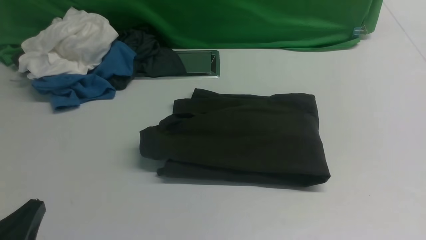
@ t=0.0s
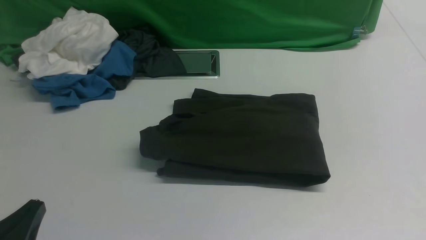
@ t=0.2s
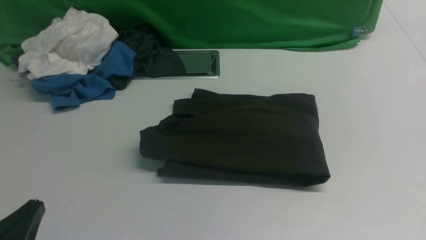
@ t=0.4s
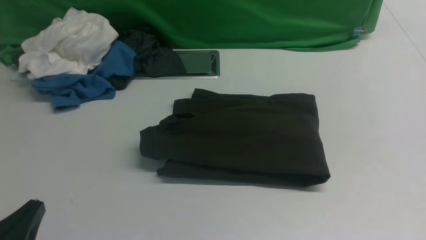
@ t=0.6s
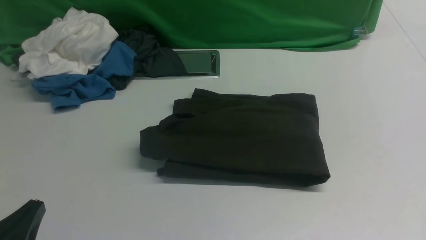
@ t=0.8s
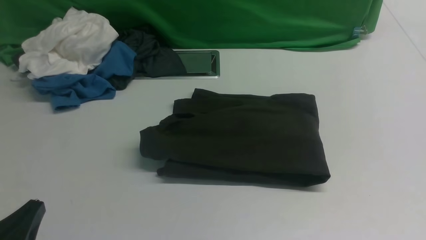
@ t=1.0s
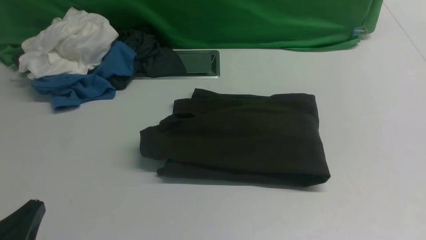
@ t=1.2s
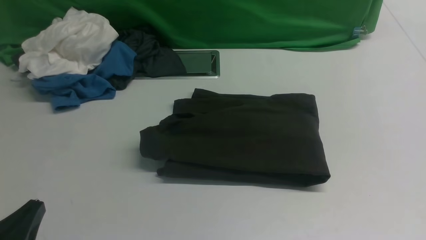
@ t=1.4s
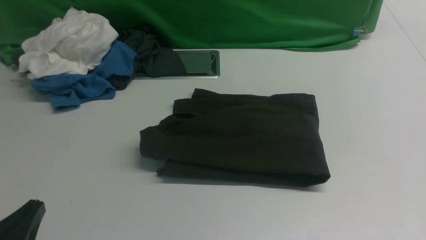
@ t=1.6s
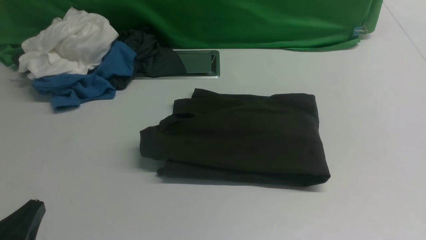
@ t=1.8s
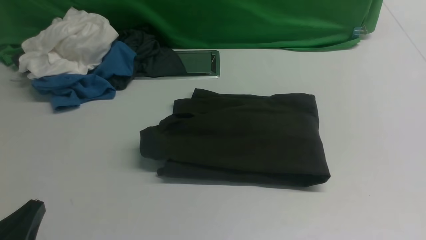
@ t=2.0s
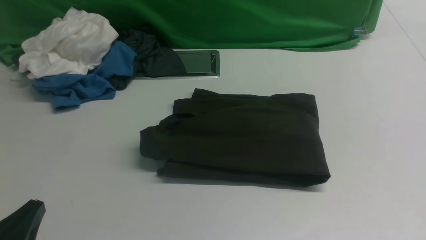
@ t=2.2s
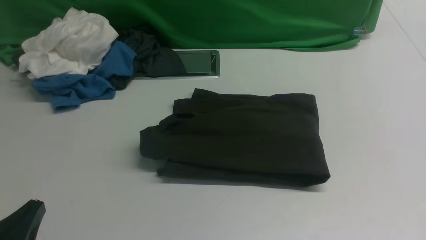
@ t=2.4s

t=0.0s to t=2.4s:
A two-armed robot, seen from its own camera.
t=0.0s to t=2.4s: Both grippers stay put.

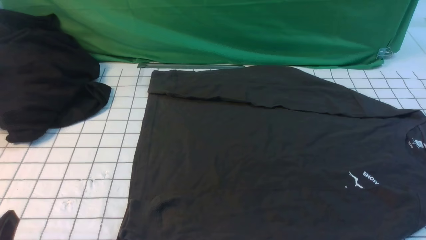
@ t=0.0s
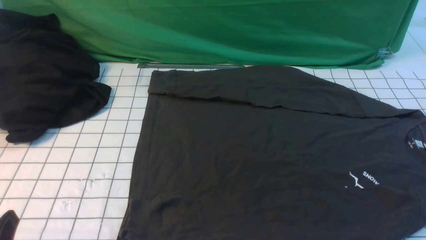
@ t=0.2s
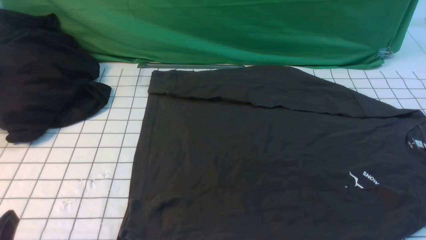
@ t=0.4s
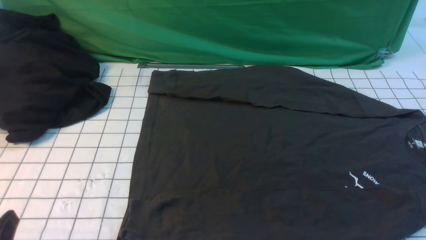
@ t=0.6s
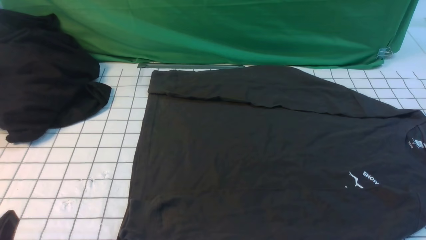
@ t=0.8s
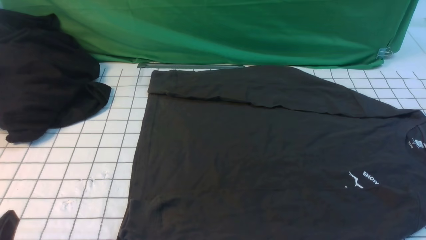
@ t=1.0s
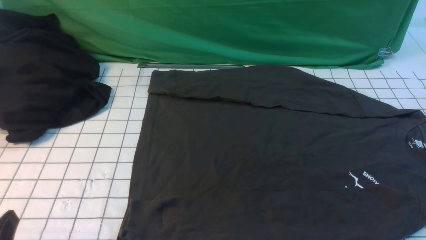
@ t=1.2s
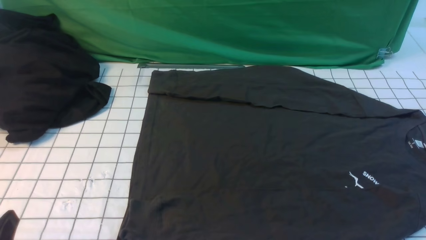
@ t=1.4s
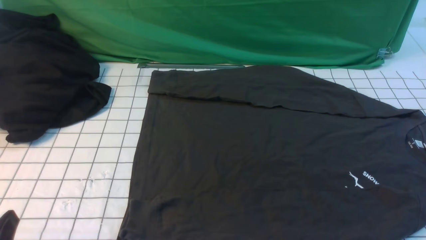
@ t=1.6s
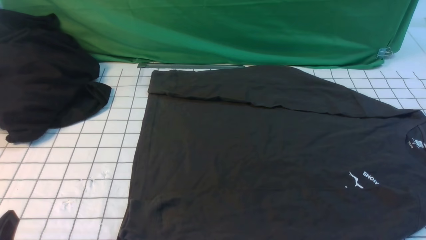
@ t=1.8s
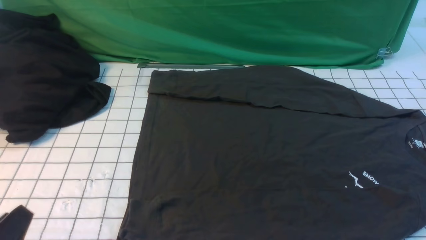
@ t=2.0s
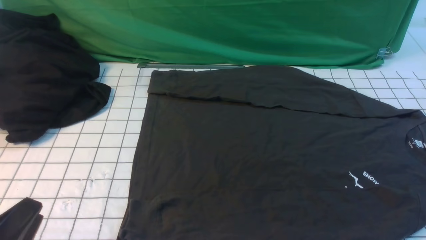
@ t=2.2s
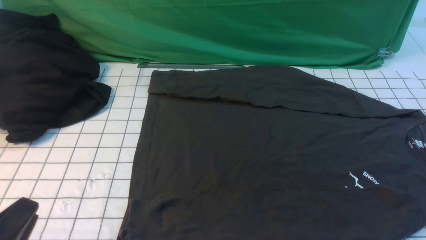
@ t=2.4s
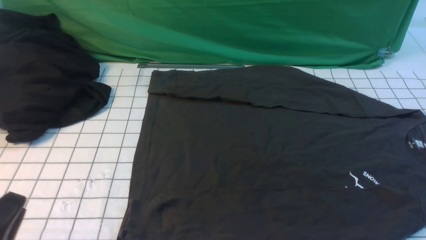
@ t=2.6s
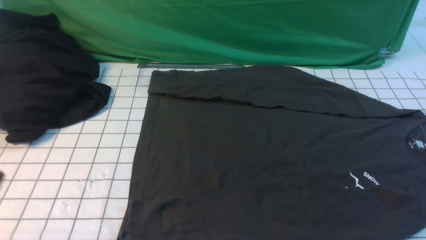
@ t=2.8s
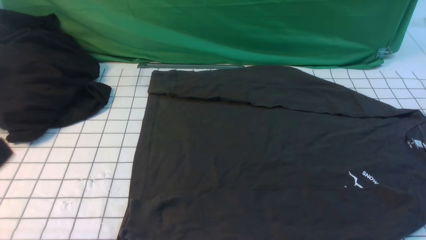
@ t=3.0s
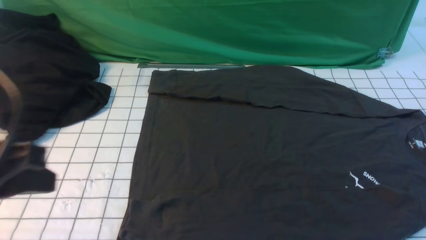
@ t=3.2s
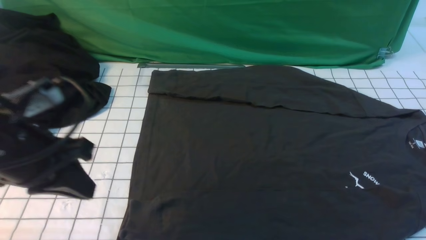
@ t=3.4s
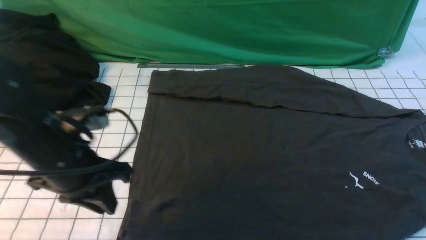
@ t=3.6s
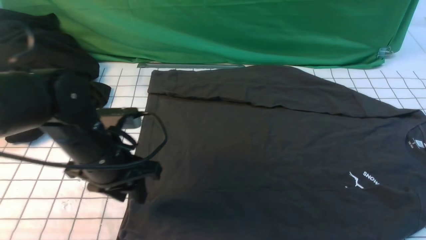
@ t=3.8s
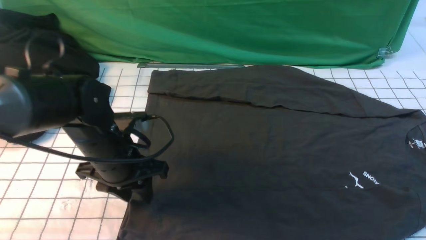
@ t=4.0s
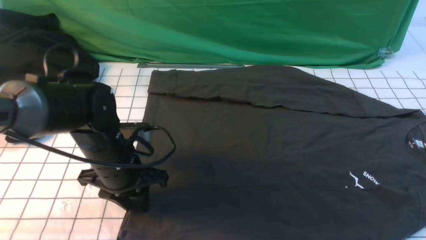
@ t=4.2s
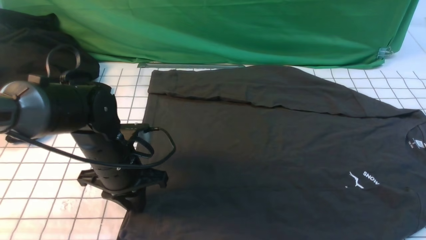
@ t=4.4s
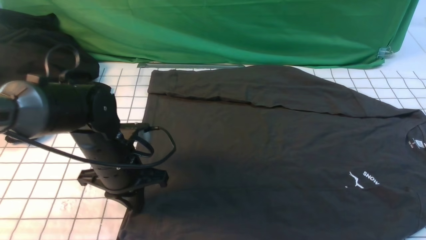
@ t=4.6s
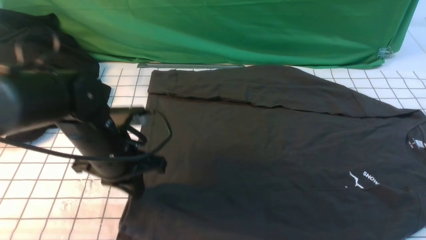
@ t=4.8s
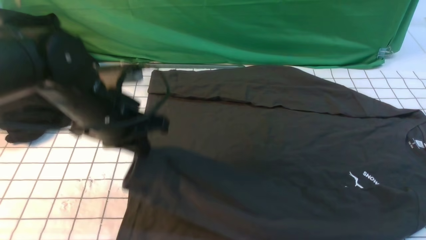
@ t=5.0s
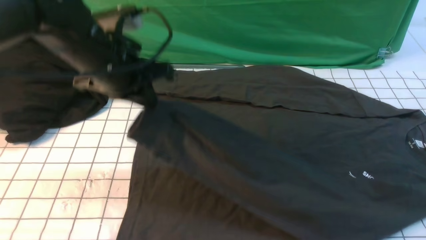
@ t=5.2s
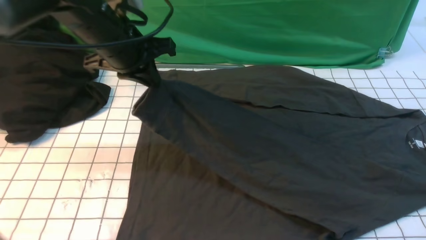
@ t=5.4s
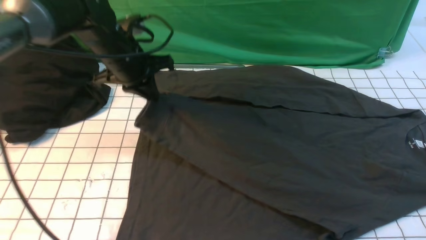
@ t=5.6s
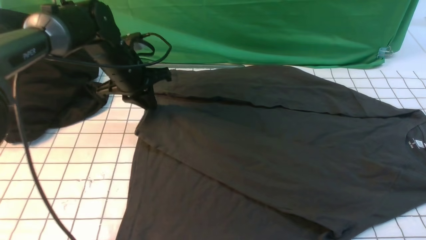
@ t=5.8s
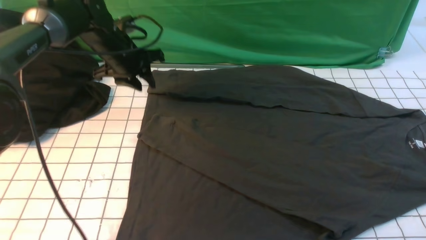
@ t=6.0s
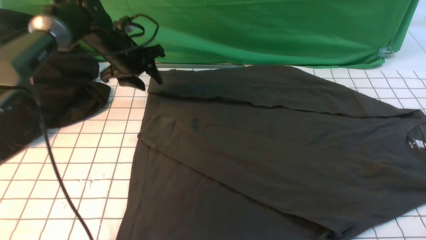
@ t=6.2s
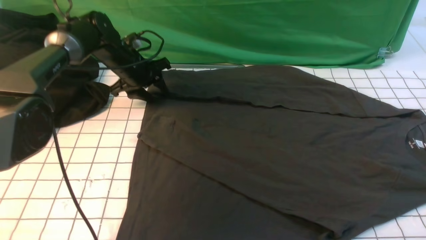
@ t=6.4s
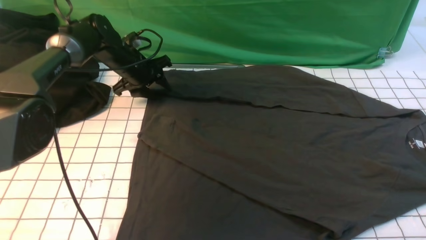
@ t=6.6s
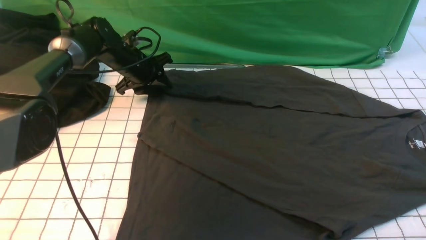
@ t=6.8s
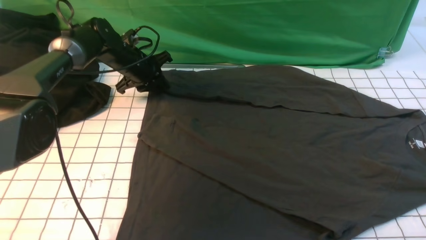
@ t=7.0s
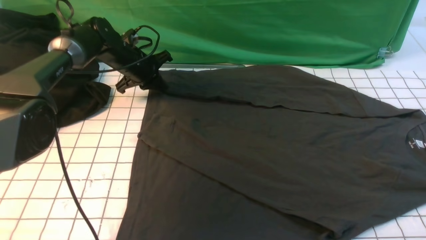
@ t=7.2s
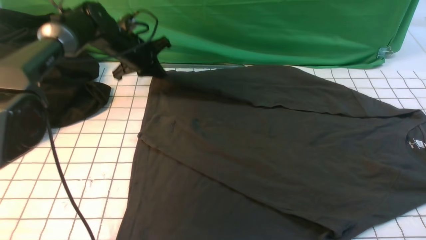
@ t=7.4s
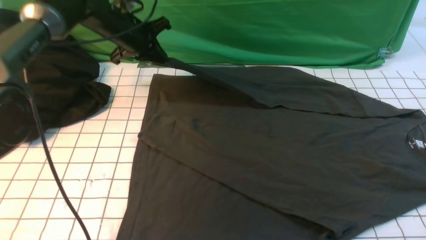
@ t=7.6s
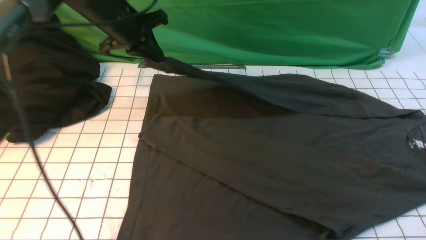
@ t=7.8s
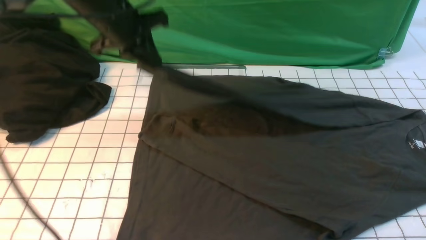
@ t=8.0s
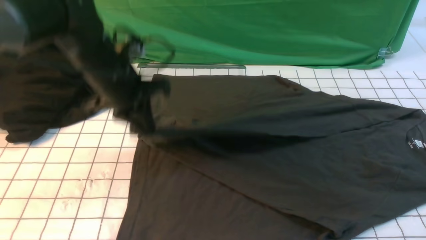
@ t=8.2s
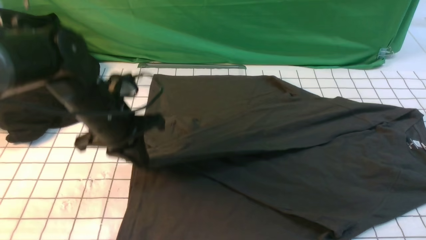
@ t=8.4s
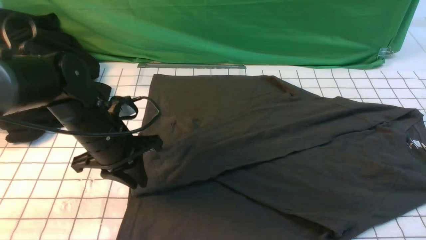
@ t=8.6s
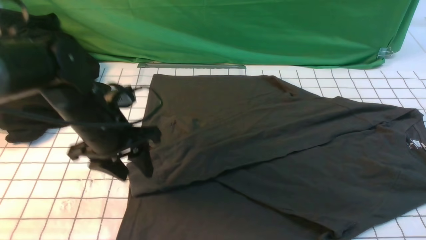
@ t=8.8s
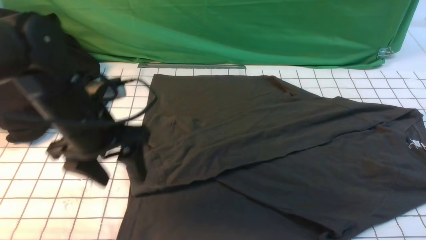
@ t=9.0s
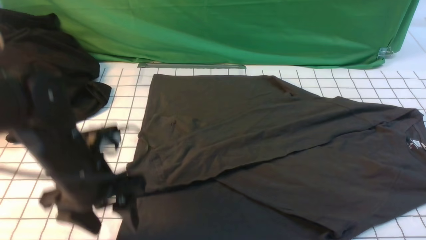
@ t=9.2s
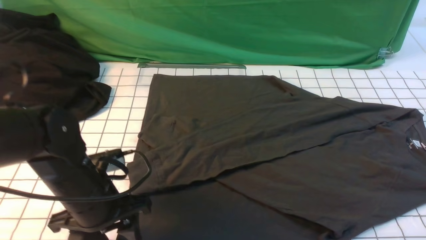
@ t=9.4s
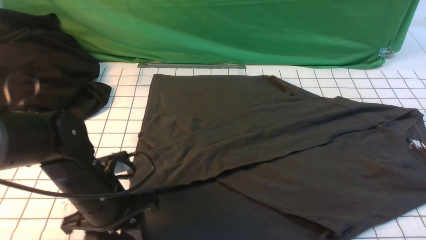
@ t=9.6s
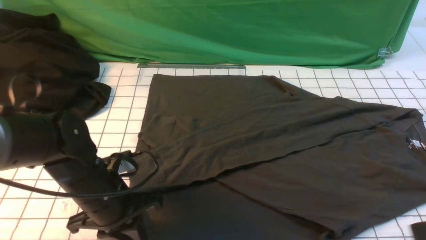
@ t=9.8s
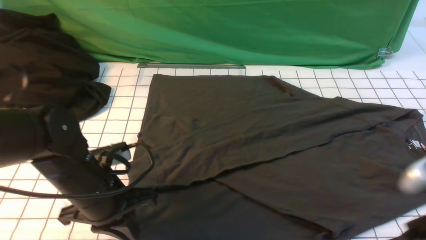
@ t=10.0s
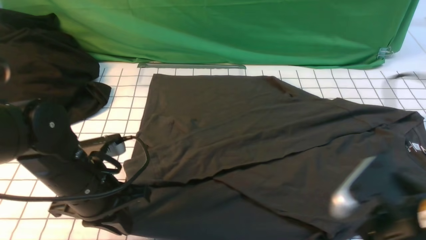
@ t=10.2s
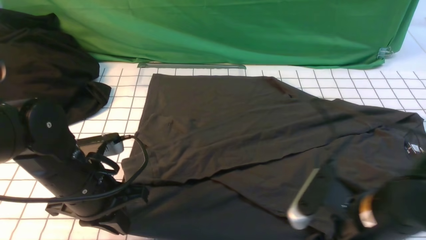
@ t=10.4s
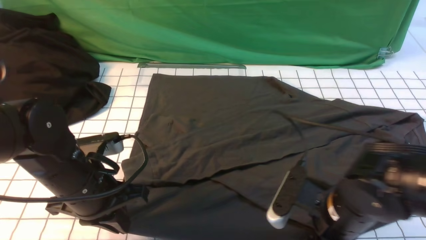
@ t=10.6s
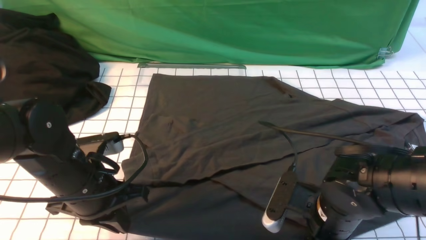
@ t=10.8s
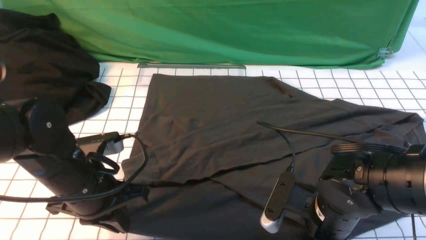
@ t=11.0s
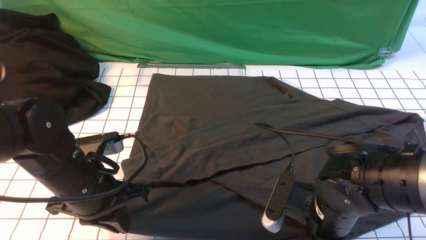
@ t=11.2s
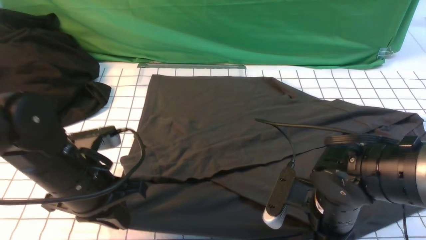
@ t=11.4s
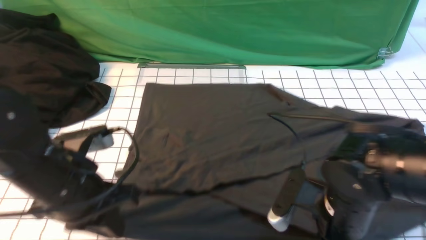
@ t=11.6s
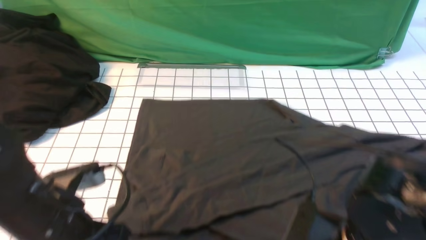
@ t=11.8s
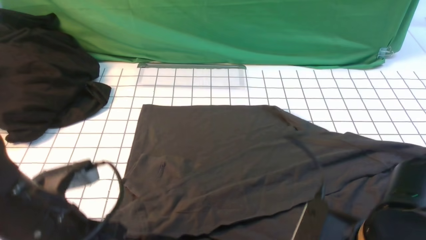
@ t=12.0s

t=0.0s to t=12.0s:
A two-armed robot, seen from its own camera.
Step, t=0.0s to t=4.8s: use the left arm to clamp the cuff closest to it.
Step, t=5.0s to t=5.8s: use the left arm to drag and place the cuff at the centered position on the left edge of the fabric.
Step, t=6.0s to t=7.2s: use the left arm to clamp the cuff farthest from it.
Step, t=7.6s to t=8.8s: use the left arm to drag and drop the cuff onto the cuff closest to the left arm.
Step, t=9.0s to t=12.0s: use both arms simultaneously to clamp the lower edge of the clothing fabric.
t=0.0s to t=1.6s: Both grippers stay about where they are.
t=1.6s to t=3.0s: The left gripper is displaced upward by approximately 15 cm, and closes.
t=3.0s to t=4.4s: The left gripper is displaced forward, downward and to the right by approximately 30 cm, and opens and closes again. The right gripper shifts roughly 5 cm forward.
t=4.4s to t=6.0s: The left gripper travels forward by about 20 cm.
t=6.0s to t=7.6s: The left gripper closes up.
t=7.6s to t=9.0s: The left gripper heads backward, covering roughly 25 cm, and opens up.
t=9.0s to t=10.4s: The left gripper changes place by approximately 5 cm, and closes its fingers. The right gripper travels to the left, downward and forward by about 15 cm, and opens up.
t=10.4s to t=12.0s: The left gripper moves backward, approximately 5 cm. The right gripper closes its fingers.

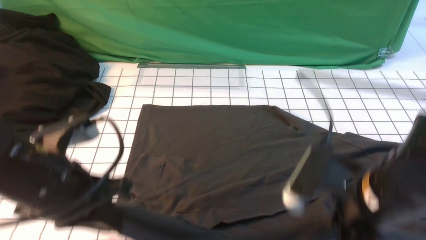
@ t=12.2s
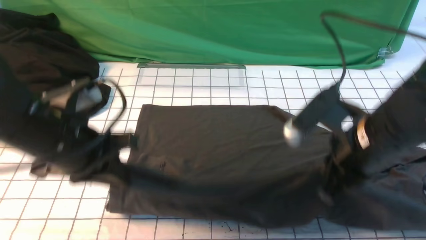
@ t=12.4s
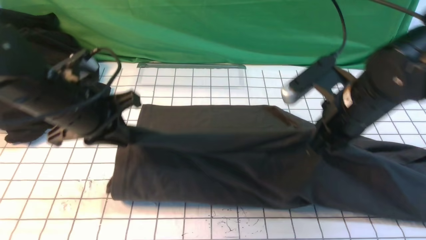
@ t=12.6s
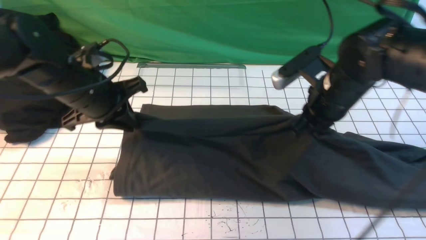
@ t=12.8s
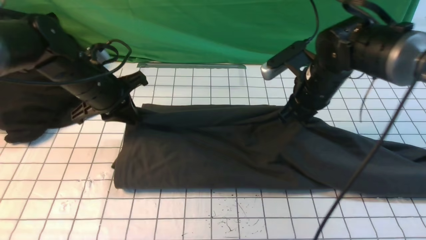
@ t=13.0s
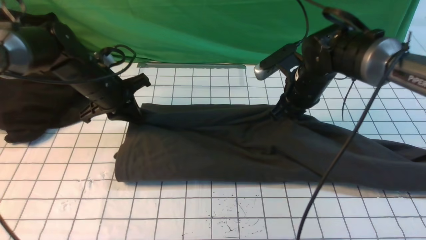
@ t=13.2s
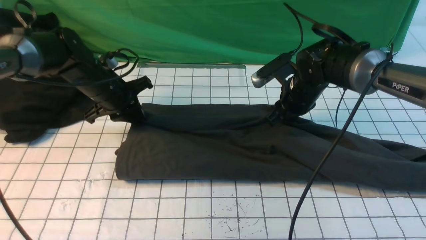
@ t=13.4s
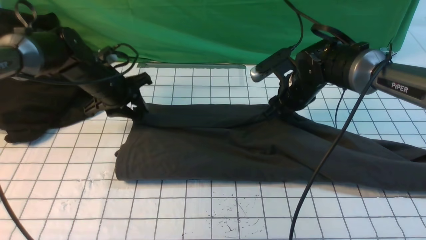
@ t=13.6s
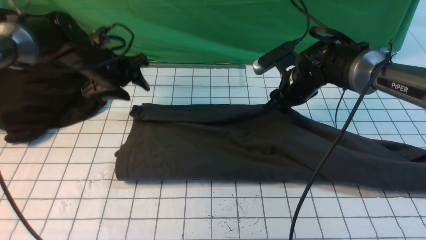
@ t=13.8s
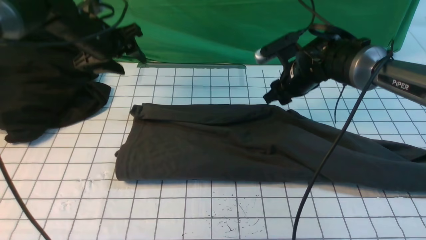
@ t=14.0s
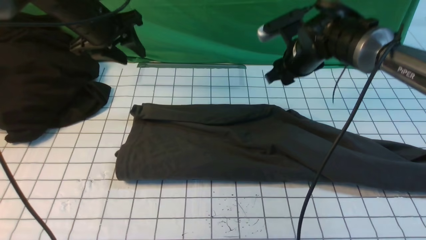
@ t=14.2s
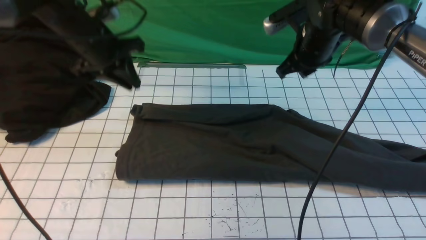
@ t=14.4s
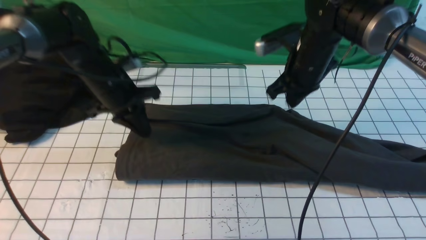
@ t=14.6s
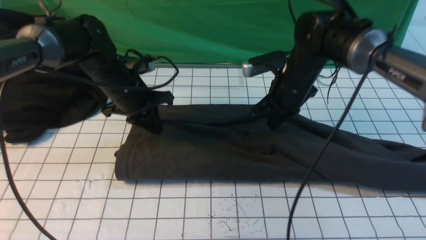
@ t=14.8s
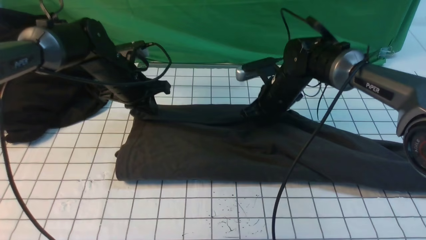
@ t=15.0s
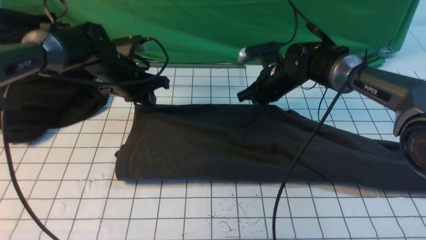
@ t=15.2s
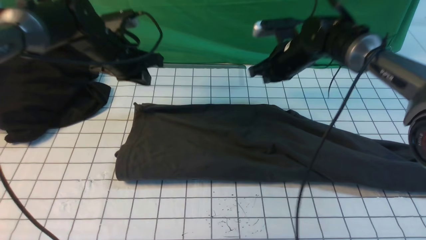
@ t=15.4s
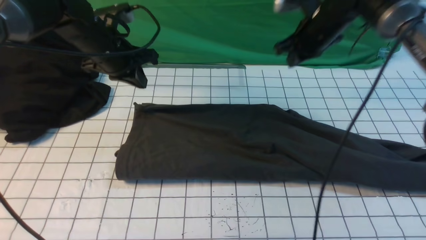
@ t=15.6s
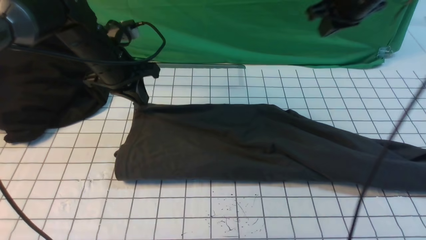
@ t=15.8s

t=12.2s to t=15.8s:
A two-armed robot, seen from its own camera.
t=12.2s to t=14.0s: The two grippers go approximately 30 cm forward. The right gripper opens its fingers. Meanwhile the left gripper opens up.
t=14.0s to t=15.8s: The right gripper goes up and down, roughly 15 cm each way, reversing 2 times, and closes up, while the left gripper travels downward and back again, about 5 cm each way, and closes up.
